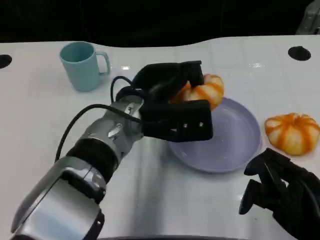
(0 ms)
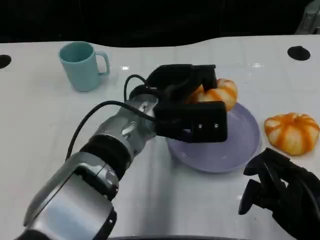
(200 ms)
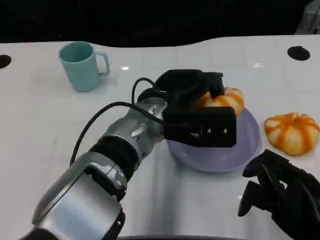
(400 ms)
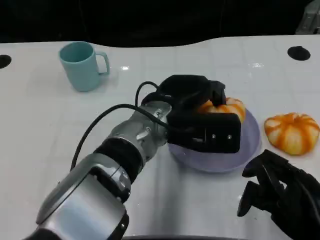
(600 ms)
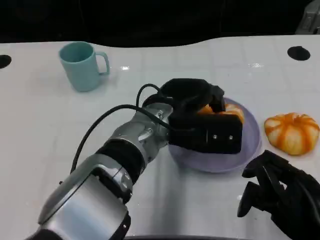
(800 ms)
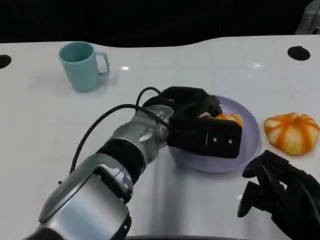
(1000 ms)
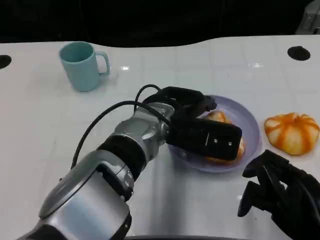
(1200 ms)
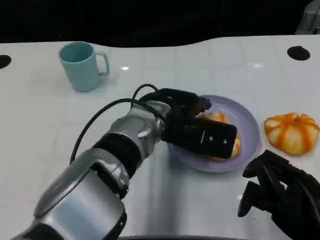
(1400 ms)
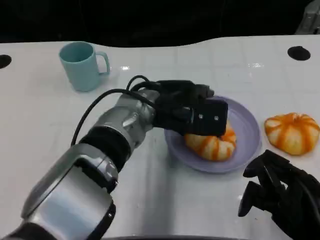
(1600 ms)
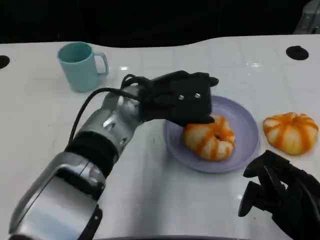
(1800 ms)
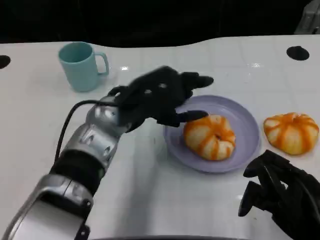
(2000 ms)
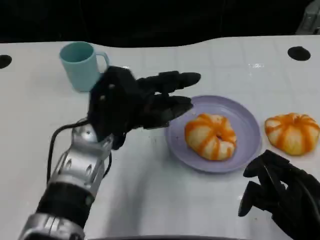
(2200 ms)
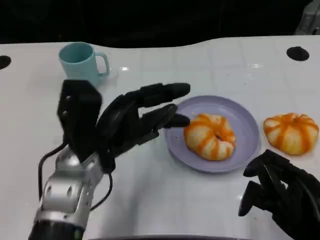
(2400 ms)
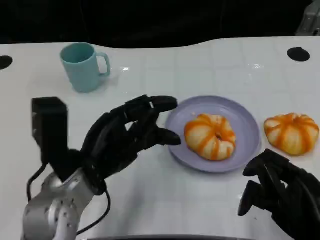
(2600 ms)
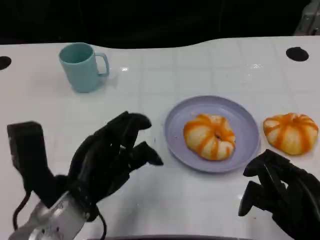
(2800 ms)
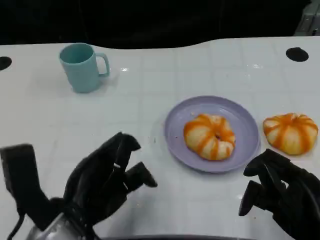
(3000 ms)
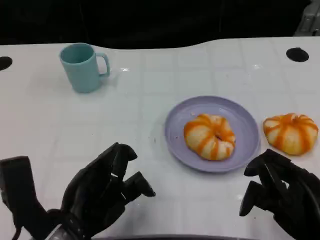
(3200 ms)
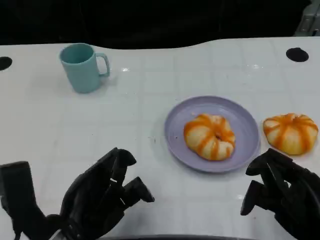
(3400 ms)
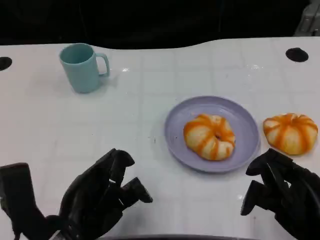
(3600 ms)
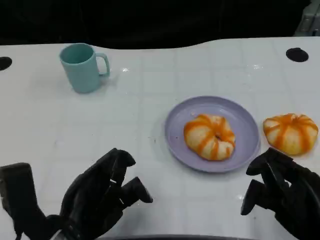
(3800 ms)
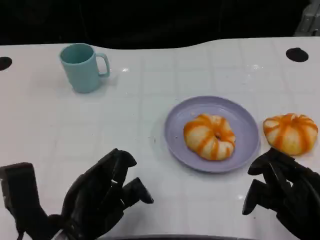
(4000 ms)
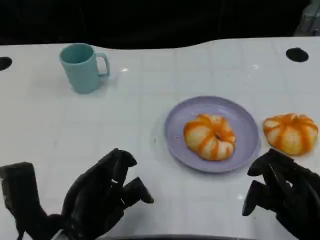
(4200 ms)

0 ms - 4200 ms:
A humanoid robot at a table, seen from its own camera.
Task of the whole recording: Grasp the bread from the table and place it into the plate.
1400 ms - 2800 ms: The left hand travels to the left and backward by about 15 cm.
2800 ms - 4200 ms: The hands make only small movements.

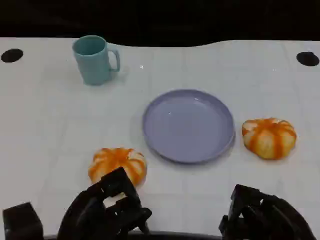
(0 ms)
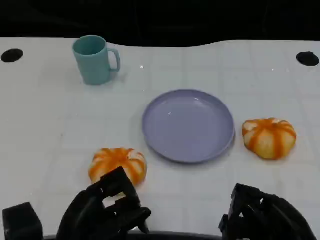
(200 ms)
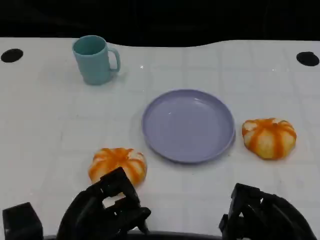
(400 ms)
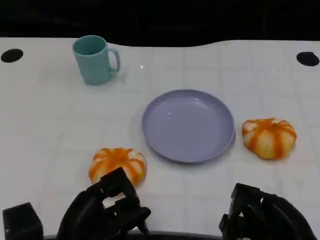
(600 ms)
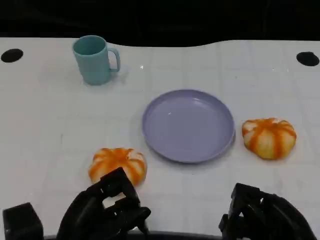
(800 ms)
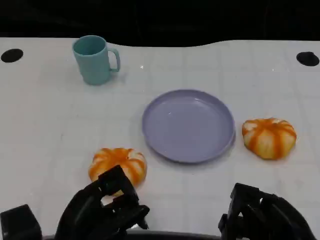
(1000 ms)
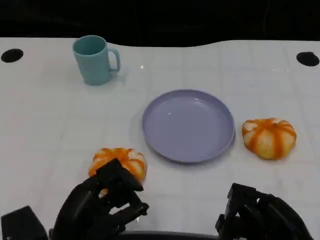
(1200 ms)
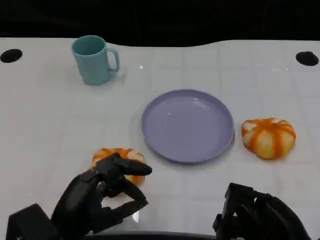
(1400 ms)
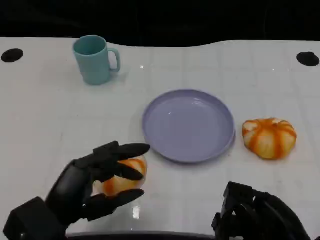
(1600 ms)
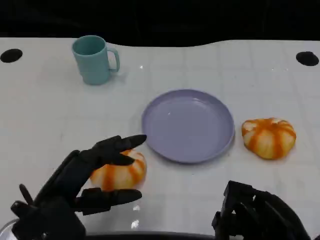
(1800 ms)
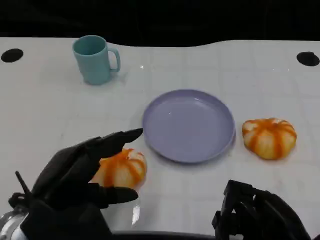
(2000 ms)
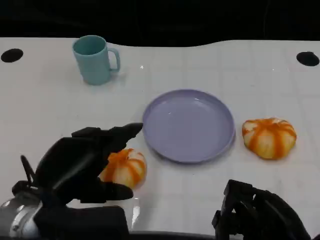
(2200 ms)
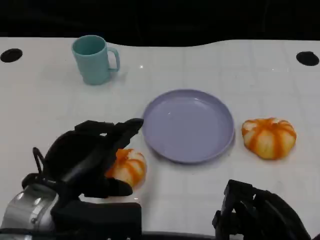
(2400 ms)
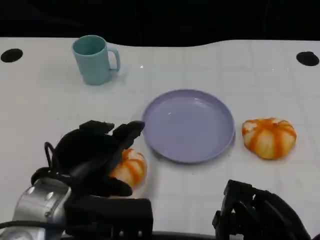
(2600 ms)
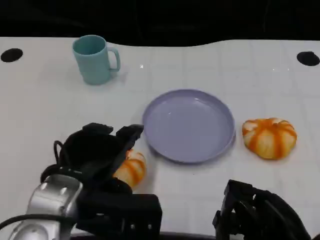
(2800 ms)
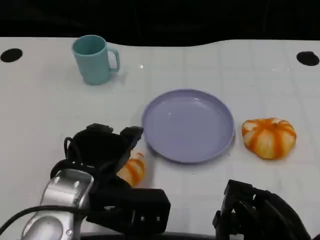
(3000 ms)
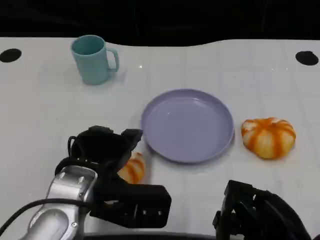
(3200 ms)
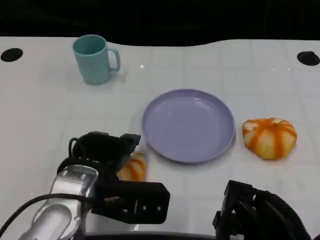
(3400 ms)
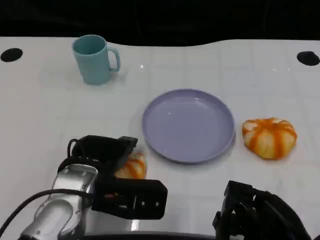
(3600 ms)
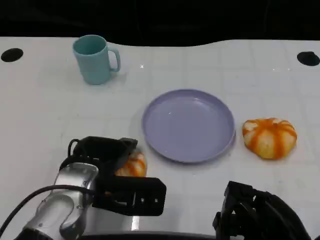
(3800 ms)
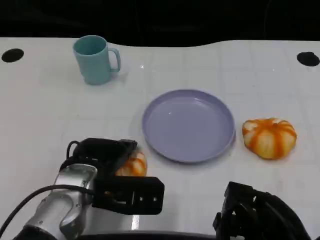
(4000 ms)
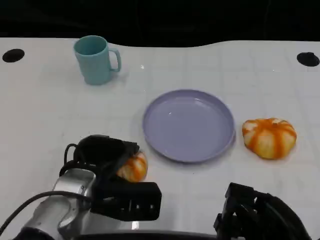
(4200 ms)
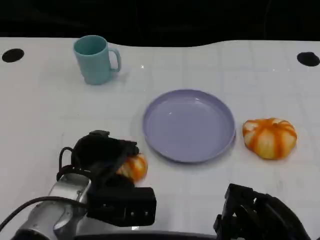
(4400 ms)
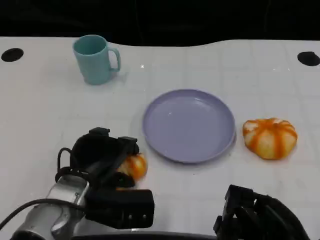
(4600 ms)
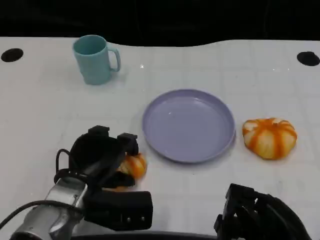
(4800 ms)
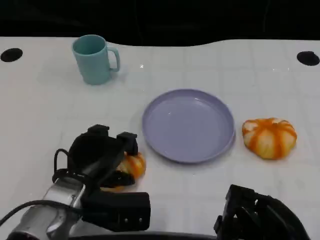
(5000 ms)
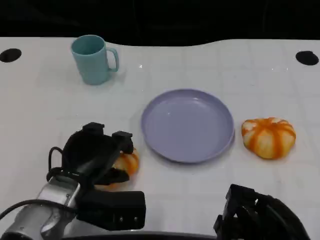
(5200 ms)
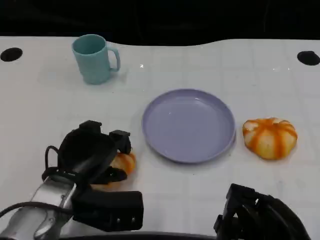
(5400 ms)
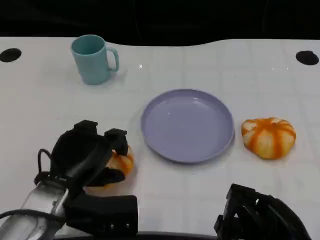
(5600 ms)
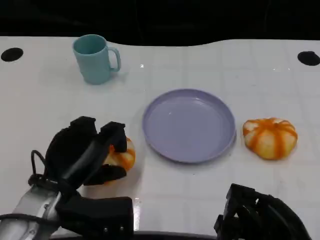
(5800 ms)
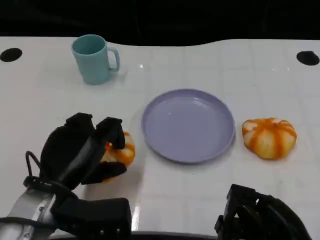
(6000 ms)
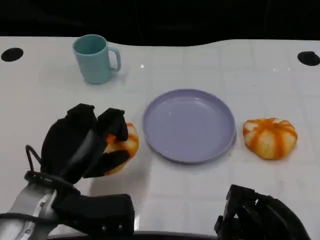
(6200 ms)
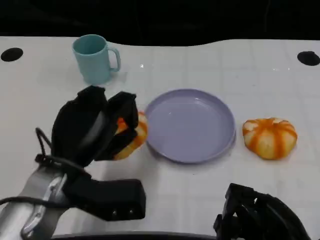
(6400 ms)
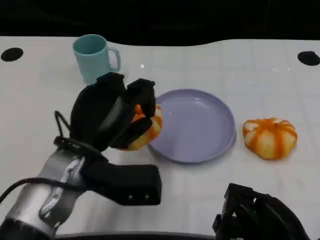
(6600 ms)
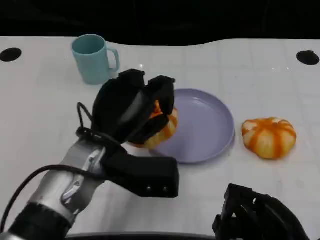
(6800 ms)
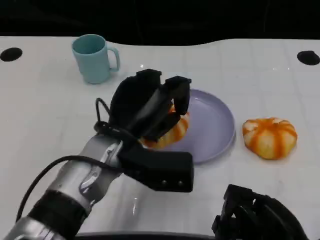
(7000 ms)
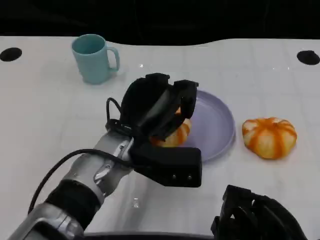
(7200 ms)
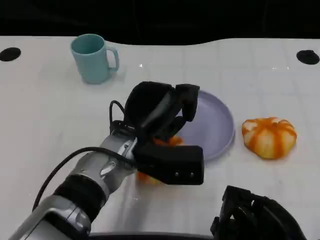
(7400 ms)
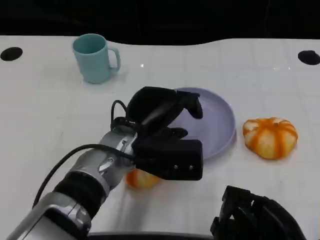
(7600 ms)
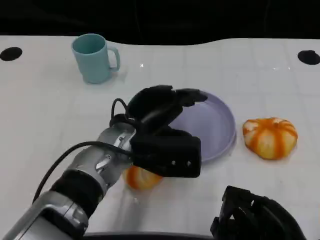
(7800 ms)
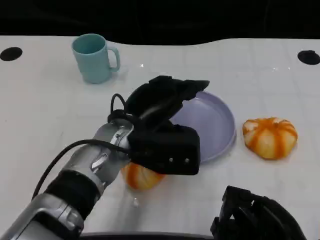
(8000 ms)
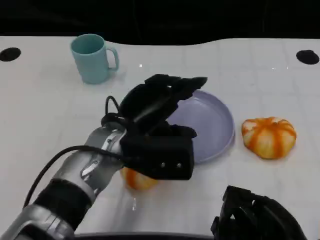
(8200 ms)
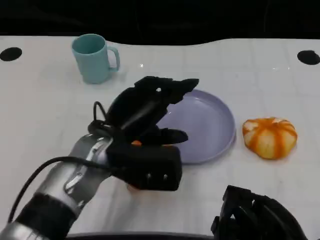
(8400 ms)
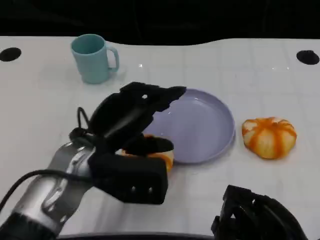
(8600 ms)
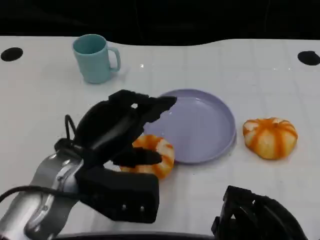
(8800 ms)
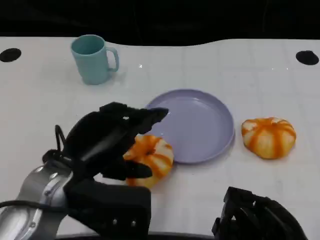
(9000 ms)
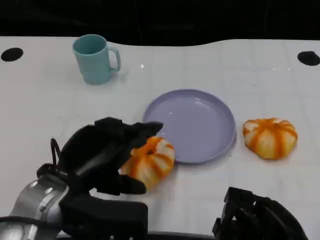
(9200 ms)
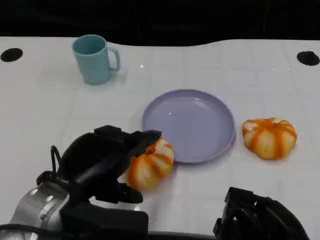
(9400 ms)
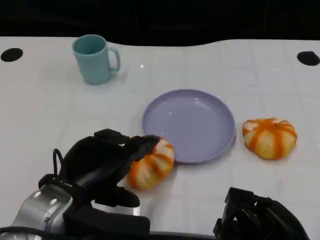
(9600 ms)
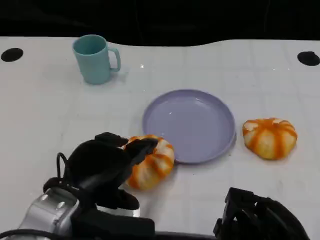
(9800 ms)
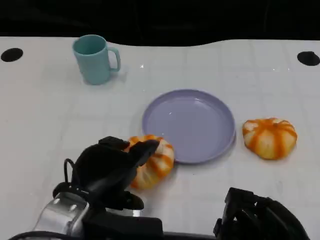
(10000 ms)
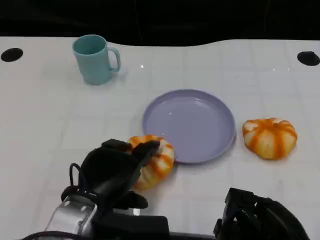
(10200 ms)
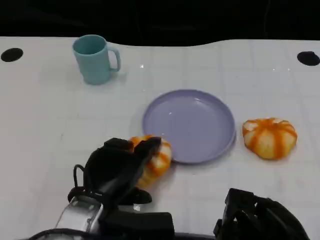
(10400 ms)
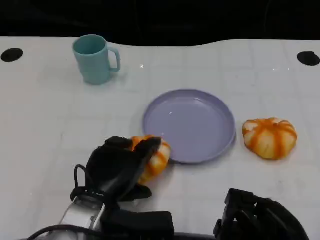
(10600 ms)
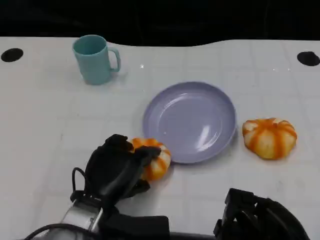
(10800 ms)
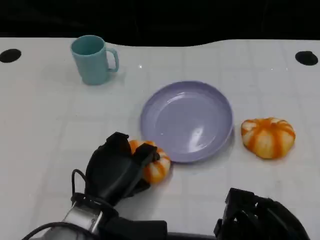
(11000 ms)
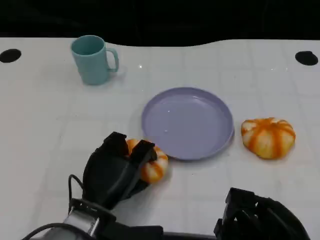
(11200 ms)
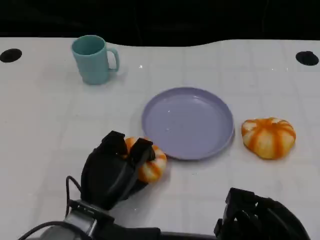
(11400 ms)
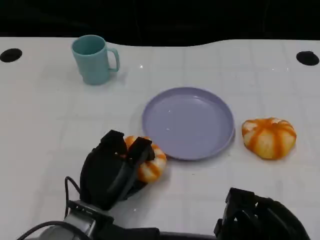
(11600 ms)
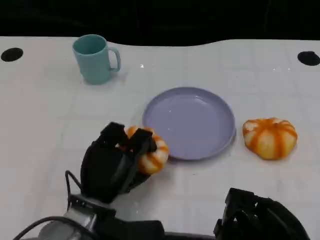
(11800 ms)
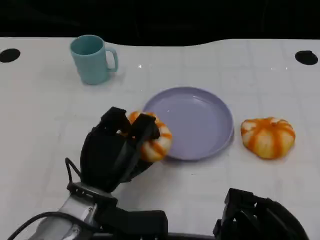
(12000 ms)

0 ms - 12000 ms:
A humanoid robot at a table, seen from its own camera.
Task of the whole recording: Grasp the bread from the table and place it into the plate.
1600 ms - 3000 ms: The left hand goes approximately 5 cm to the right.
3000 ms - 4400 ms: The left hand is displaced downward by some 5 cm.
4400 ms - 6000 ms: The left hand changes place by about 5 cm.
6000 ms - 7600 ms: The left hand moves to the right and forward, some 15 cm.
7600 ms - 9000 ms: The left hand shifts some 10 cm to the left and backward.
9000 ms - 10400 ms: The left hand moves downward, roughly 10 cm.

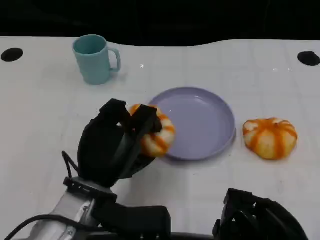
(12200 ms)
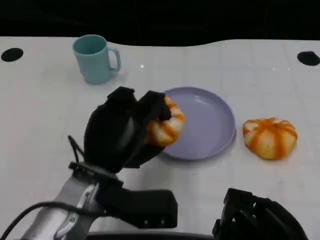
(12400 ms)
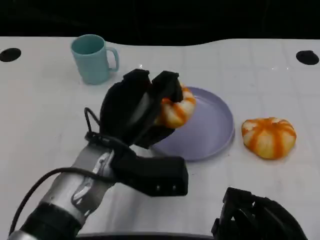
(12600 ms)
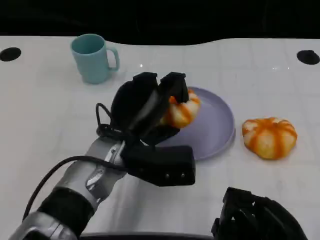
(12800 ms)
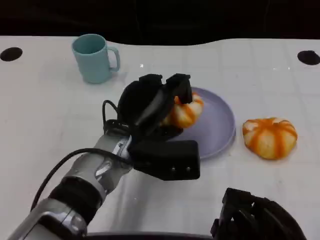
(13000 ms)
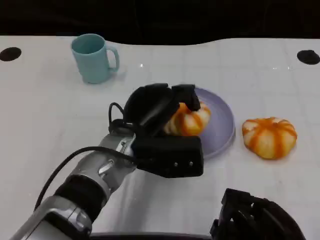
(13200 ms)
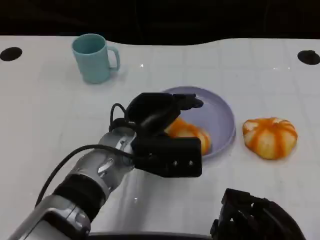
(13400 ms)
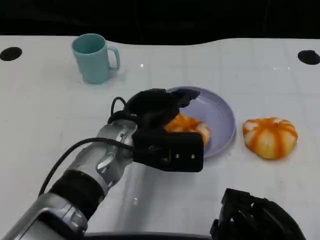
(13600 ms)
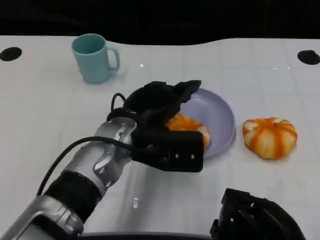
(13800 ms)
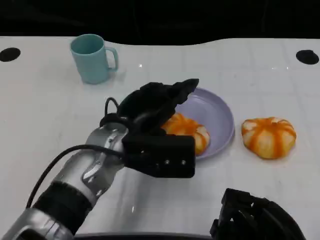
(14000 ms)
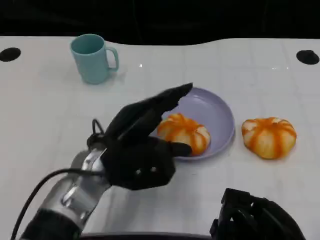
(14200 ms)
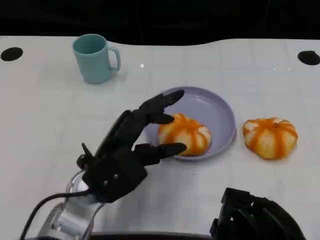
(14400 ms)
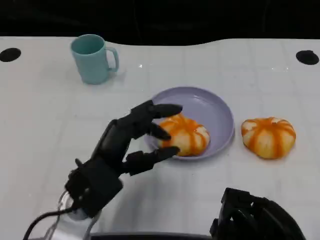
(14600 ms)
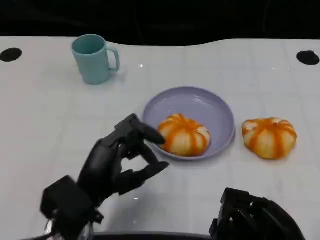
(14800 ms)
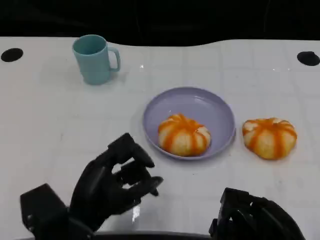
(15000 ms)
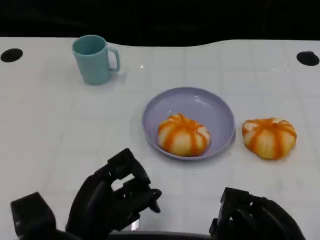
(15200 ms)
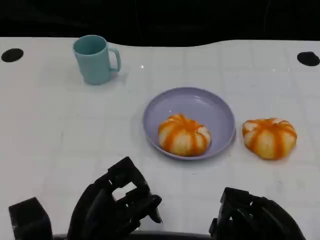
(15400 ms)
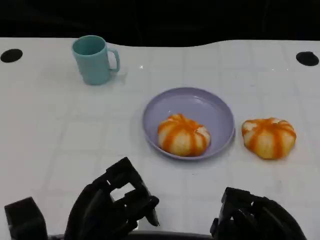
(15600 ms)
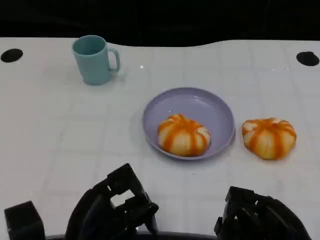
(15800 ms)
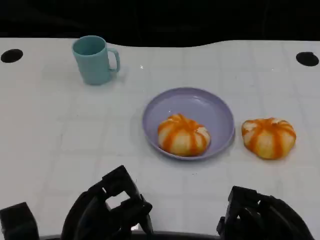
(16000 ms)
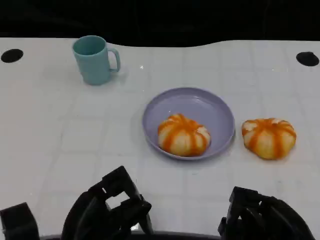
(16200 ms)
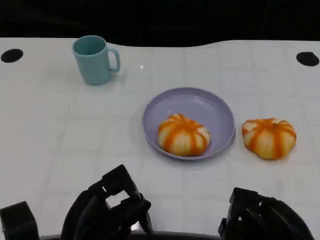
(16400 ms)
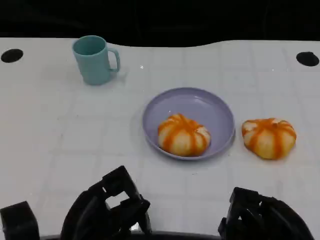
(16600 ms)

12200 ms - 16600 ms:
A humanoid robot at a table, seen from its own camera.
Task of the whole recording: Grasp the bread from the table and place it into the plate.
12200 ms - 13600 ms: The left hand travels forward and to the right by about 10 cm.
13600 ms - 15200 ms: The left hand moves backward, to the left and downward, roughly 15 cm.
15200 ms - 16600 ms: The hands make only small movements.

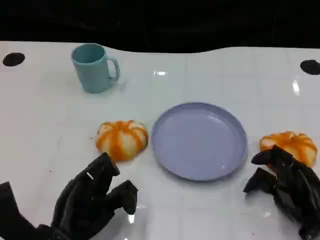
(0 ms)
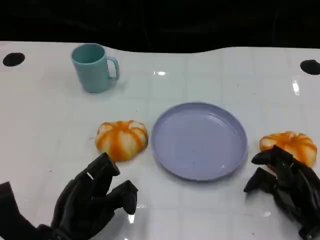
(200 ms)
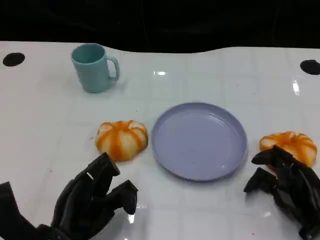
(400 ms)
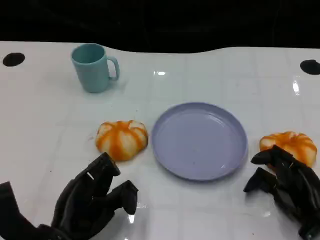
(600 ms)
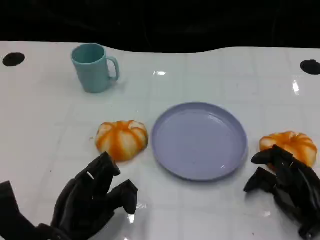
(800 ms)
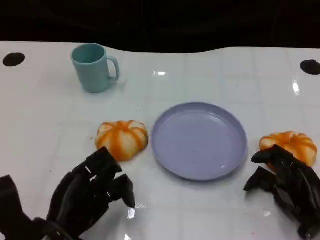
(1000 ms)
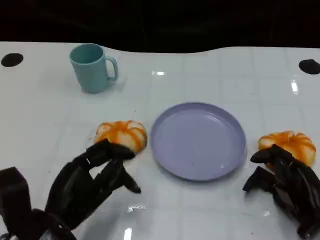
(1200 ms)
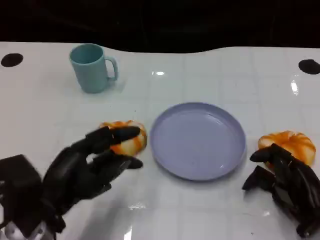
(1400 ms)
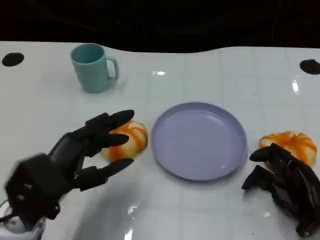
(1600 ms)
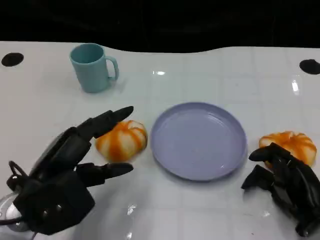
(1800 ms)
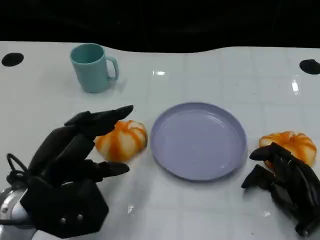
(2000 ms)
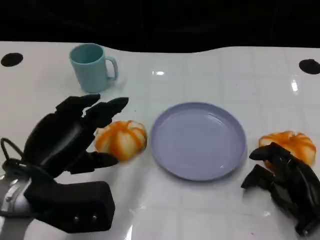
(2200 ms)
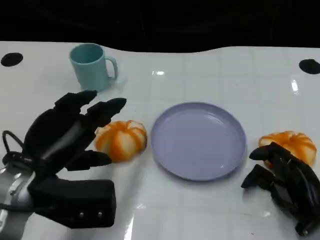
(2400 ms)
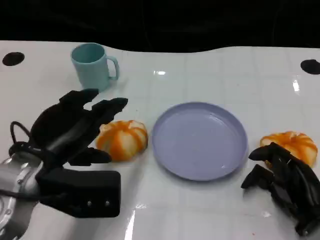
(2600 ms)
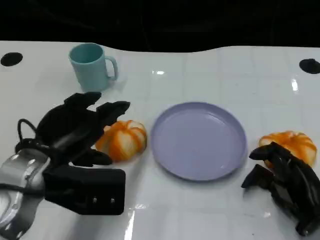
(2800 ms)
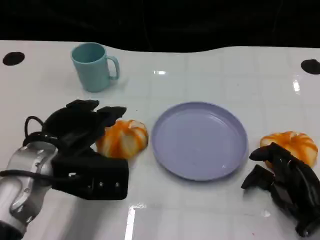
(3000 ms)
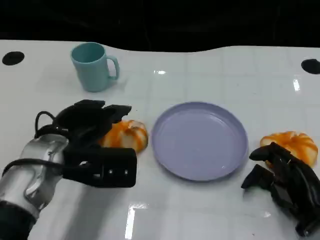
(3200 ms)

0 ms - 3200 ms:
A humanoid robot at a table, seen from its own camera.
Task of the whole recording: Grasp the bread from the table and place it into the plate.
0 ms - 1600 ms: The left hand moves upward, roughly 5 cm.
1600 ms - 3200 ms: The left hand heads forward, covering about 10 cm.
